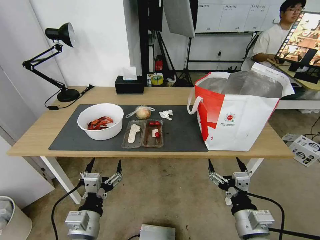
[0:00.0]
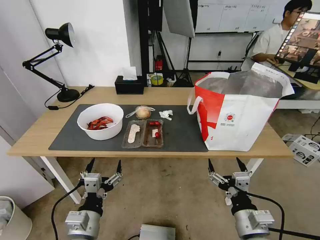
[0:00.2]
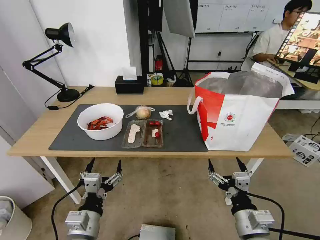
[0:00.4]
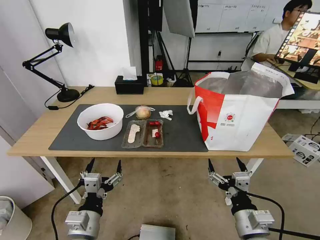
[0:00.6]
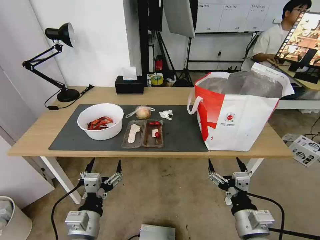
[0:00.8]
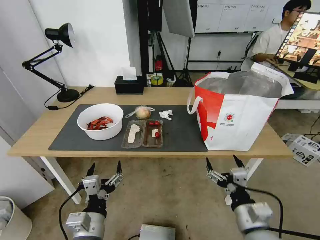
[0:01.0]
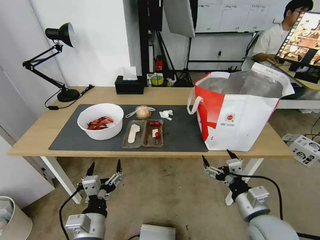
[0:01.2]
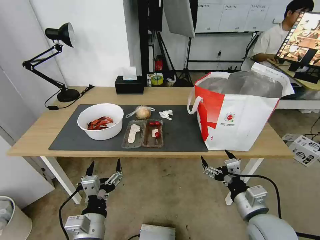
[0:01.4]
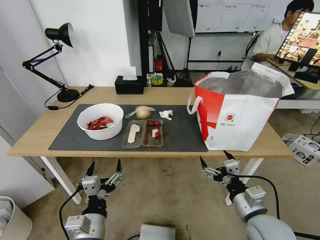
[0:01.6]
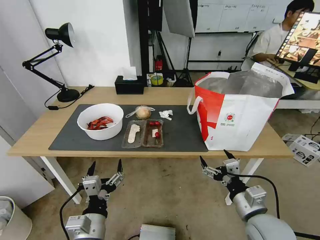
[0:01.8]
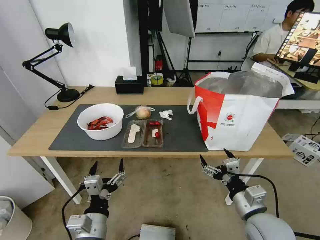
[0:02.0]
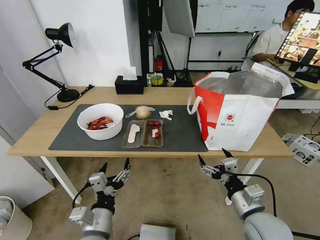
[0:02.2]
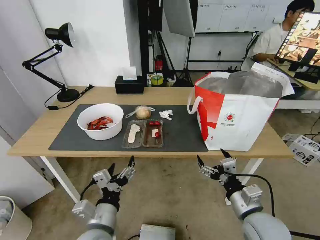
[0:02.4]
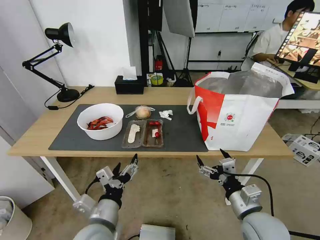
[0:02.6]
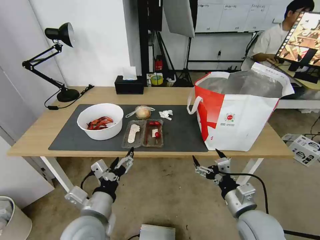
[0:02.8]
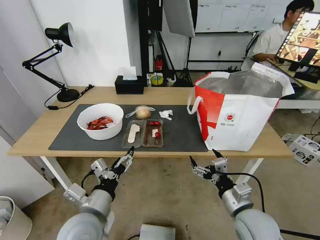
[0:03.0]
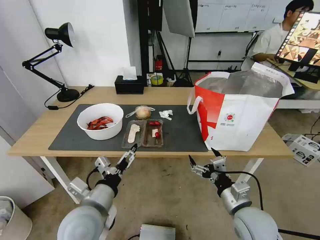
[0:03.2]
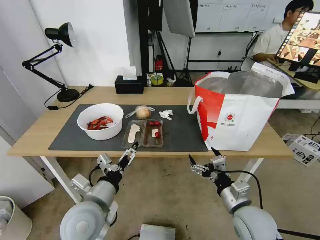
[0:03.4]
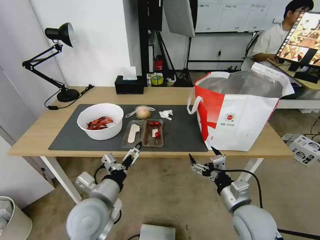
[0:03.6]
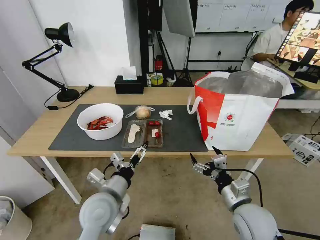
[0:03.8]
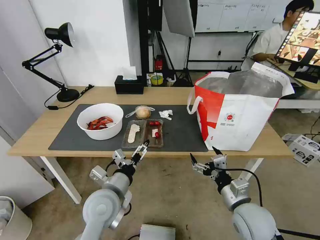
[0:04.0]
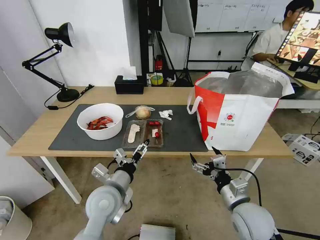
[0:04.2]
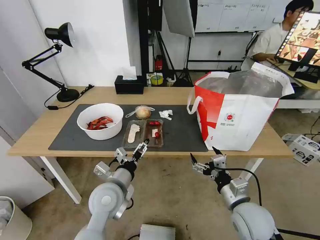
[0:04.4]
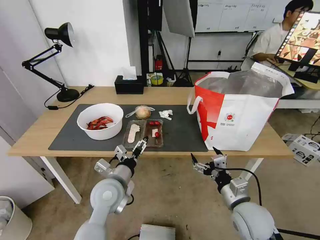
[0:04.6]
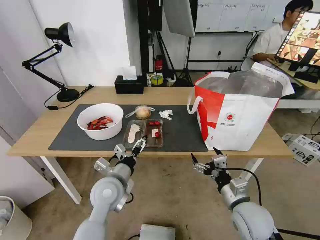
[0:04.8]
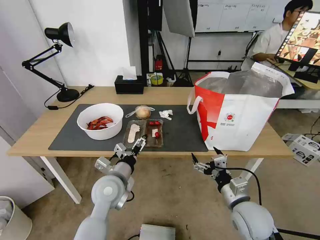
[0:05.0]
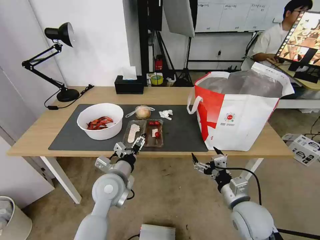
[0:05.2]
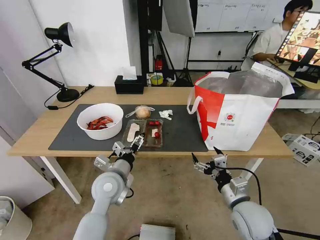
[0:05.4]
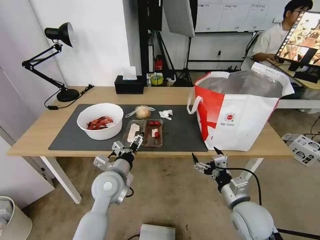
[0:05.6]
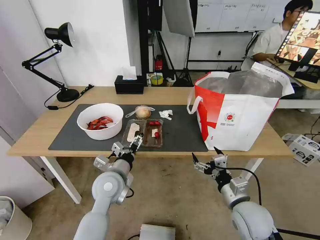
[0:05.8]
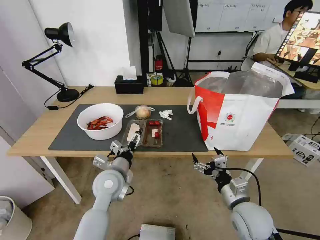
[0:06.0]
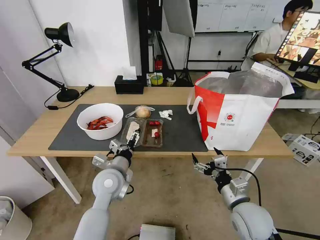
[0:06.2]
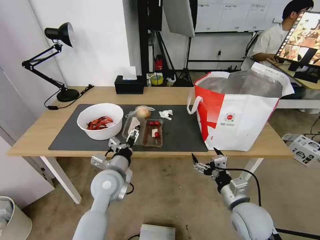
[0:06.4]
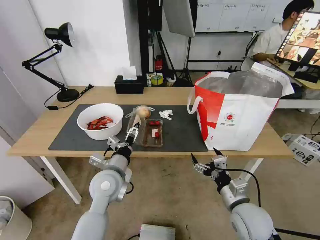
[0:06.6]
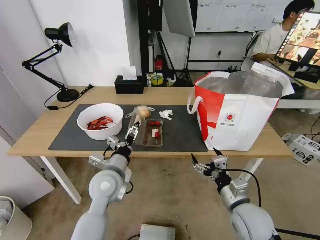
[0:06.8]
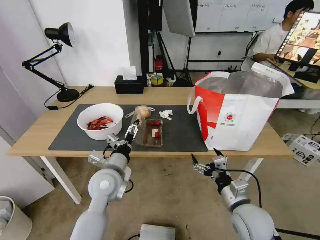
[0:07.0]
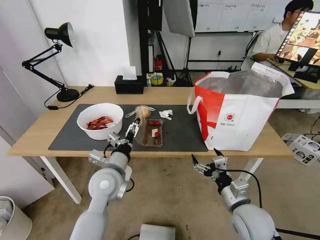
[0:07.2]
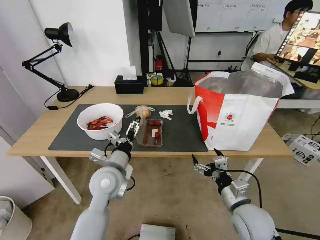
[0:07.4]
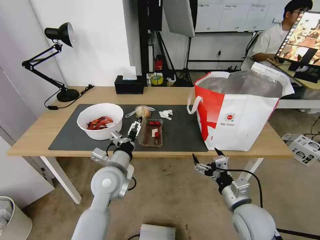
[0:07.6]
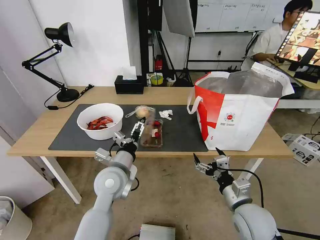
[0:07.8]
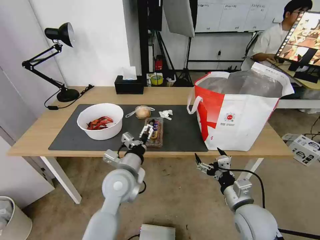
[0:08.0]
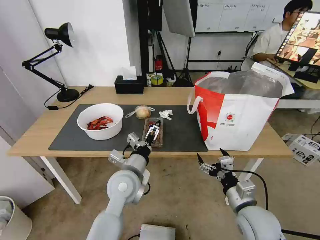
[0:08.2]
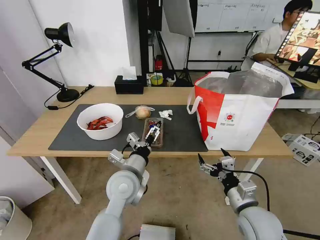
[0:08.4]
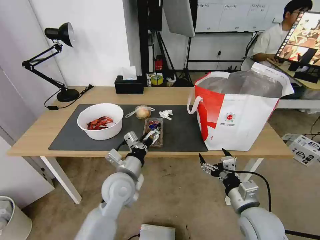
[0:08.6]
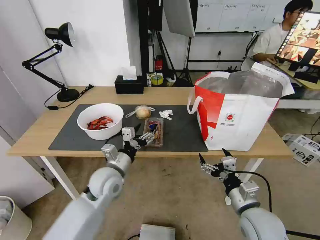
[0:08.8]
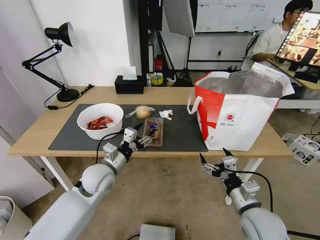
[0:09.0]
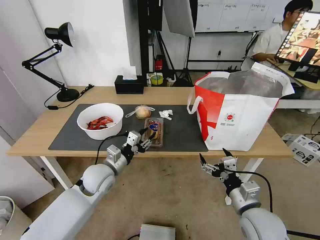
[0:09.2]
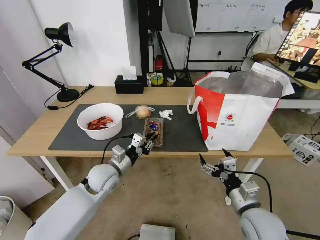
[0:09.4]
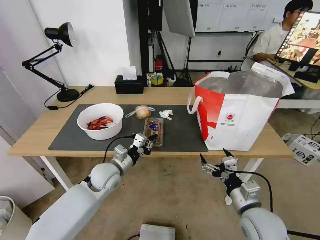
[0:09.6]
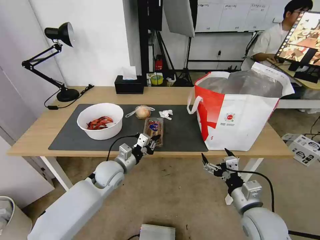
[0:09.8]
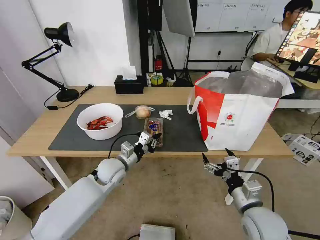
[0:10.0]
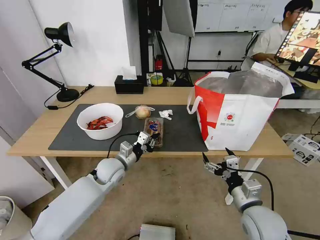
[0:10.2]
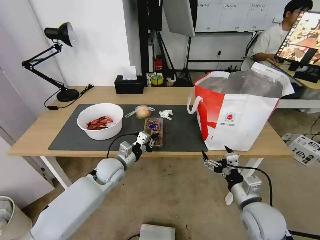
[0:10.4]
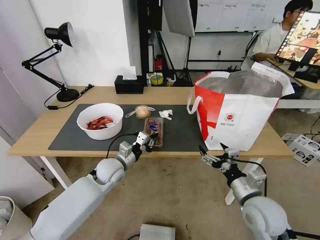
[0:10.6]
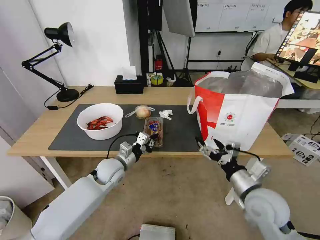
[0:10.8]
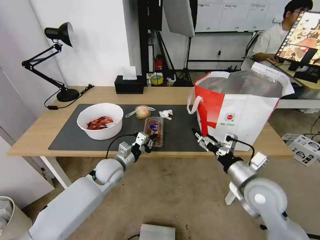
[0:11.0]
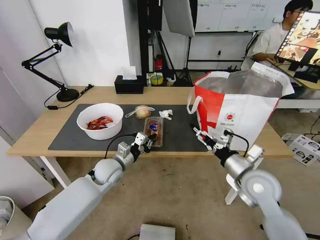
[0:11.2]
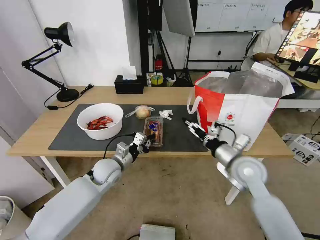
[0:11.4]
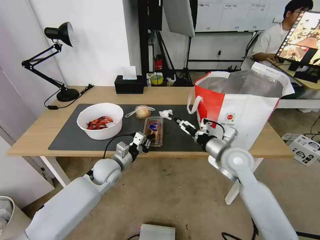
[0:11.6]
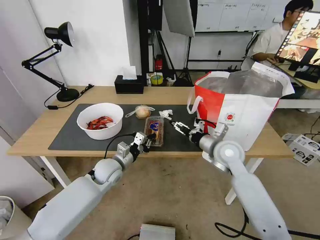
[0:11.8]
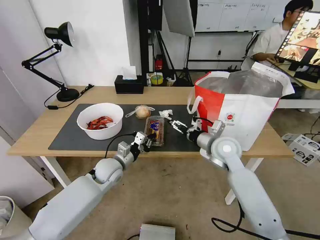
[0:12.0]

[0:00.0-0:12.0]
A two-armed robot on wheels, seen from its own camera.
Task of the whole recording: Pick up the trash from the table and place it into the takeout bag.
0:01.6 to 0:03.0: The left gripper goes some 5 cm upward.
0:03.0 to 0:04.4: The left gripper heads forward, covering some 10 cm.
0:04.4 to 0:07.6: The grippers move only a little.
0:07.6 to 0:09.0: The left gripper ends up some 5 cm from where it was, and closes.
0:09.0 to 0:10.4: The left gripper shifts by about 5 cm, and closes its fingers.
0:10.4 to 0:12.0: The right gripper moves forward, roughly 20 cm.

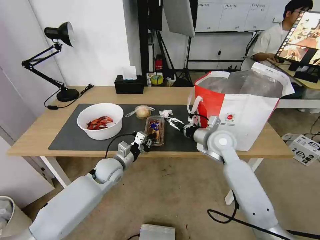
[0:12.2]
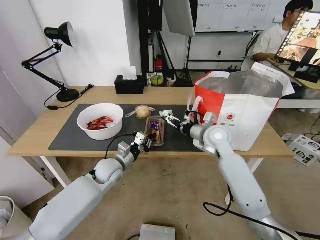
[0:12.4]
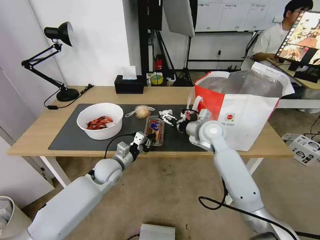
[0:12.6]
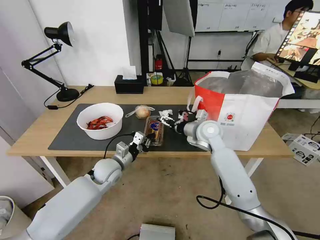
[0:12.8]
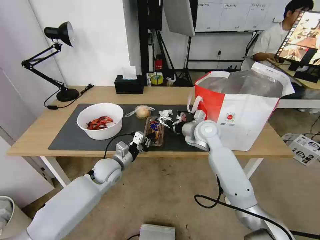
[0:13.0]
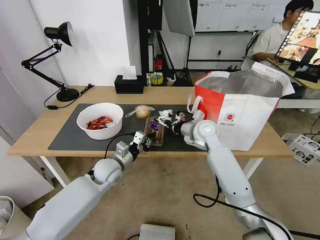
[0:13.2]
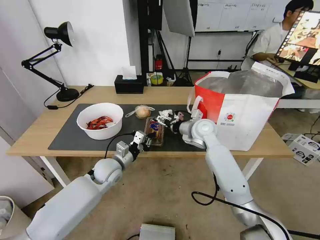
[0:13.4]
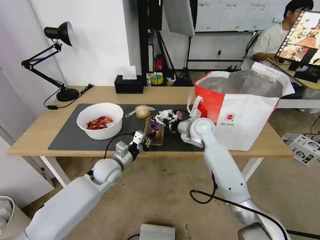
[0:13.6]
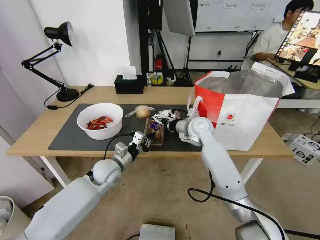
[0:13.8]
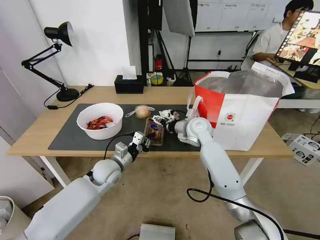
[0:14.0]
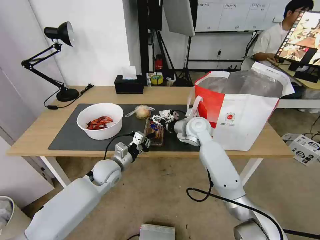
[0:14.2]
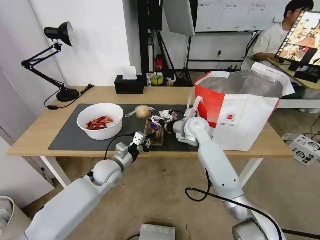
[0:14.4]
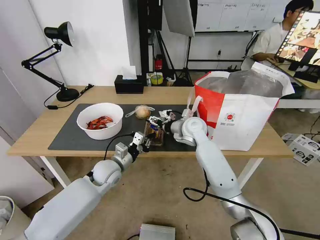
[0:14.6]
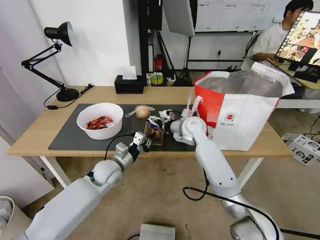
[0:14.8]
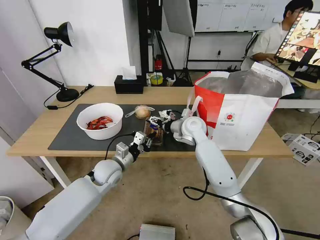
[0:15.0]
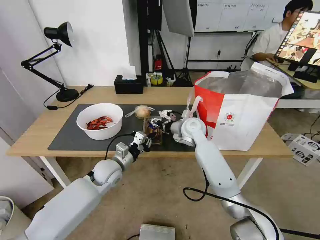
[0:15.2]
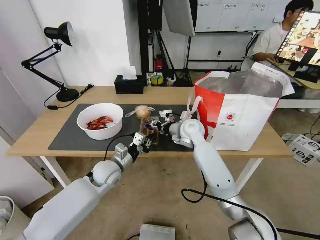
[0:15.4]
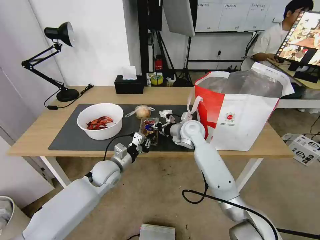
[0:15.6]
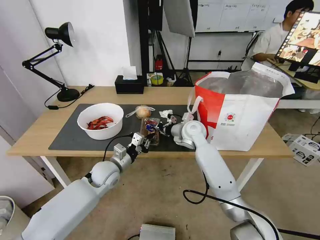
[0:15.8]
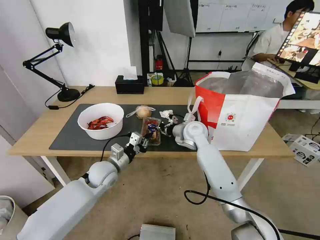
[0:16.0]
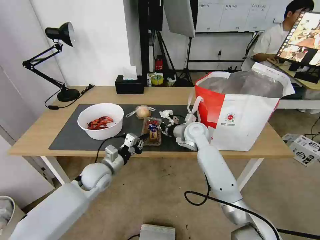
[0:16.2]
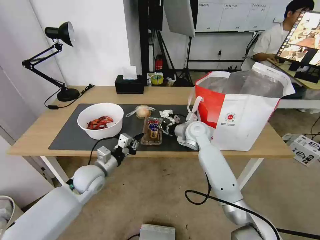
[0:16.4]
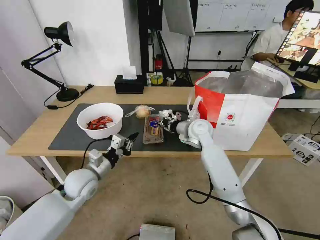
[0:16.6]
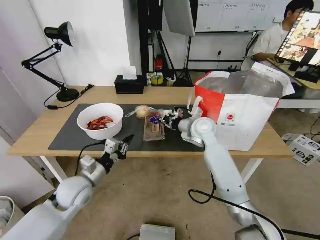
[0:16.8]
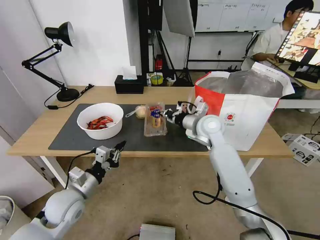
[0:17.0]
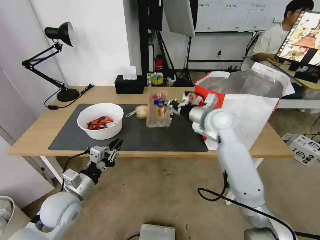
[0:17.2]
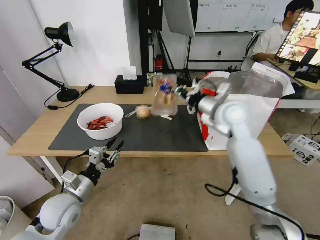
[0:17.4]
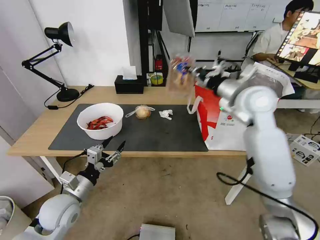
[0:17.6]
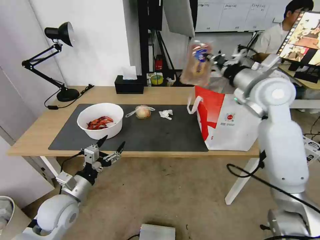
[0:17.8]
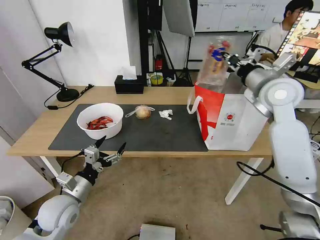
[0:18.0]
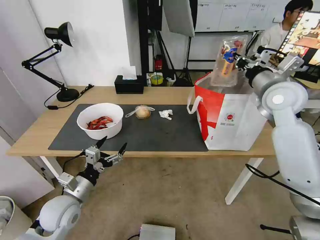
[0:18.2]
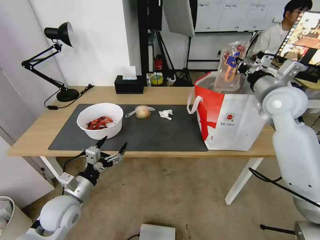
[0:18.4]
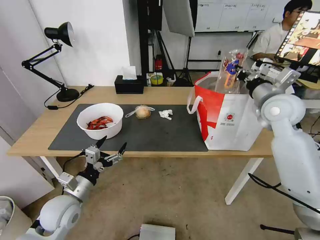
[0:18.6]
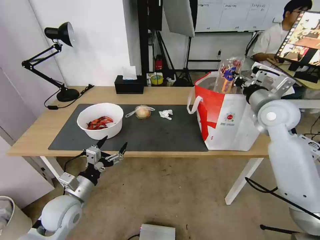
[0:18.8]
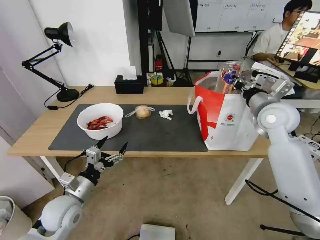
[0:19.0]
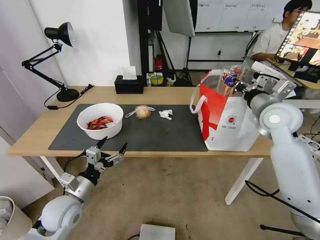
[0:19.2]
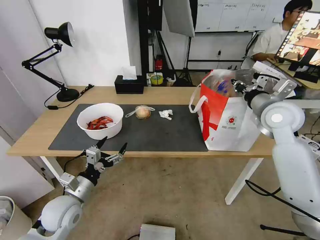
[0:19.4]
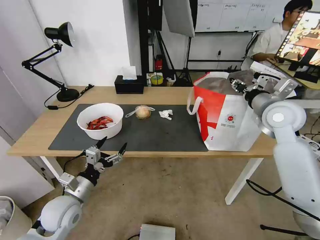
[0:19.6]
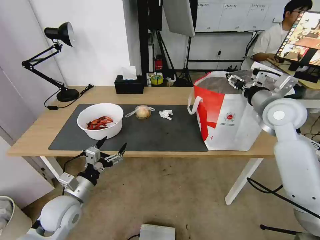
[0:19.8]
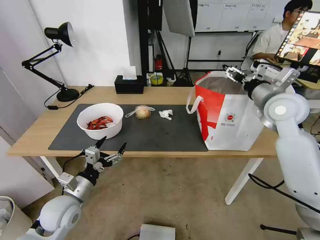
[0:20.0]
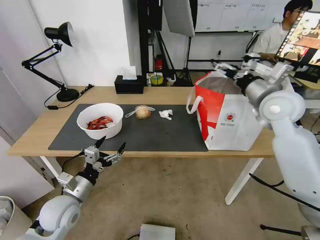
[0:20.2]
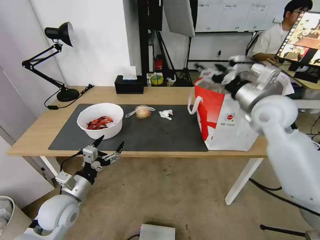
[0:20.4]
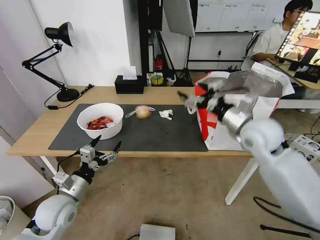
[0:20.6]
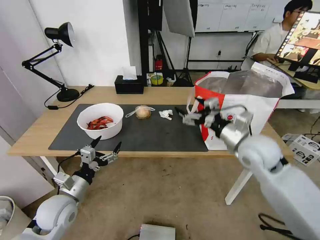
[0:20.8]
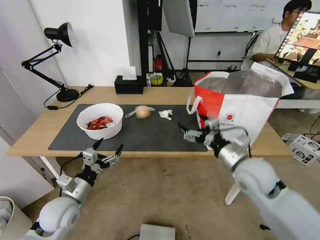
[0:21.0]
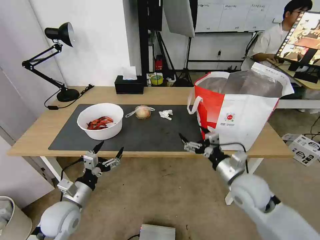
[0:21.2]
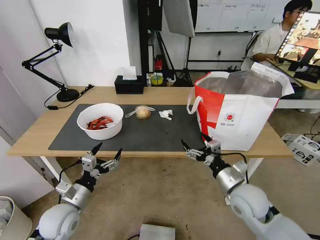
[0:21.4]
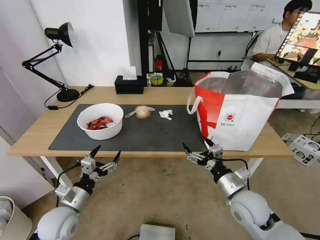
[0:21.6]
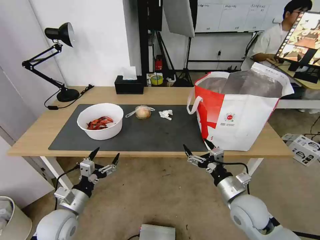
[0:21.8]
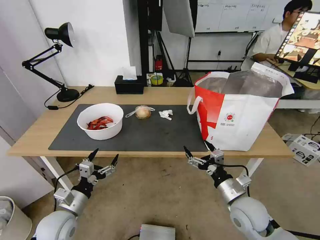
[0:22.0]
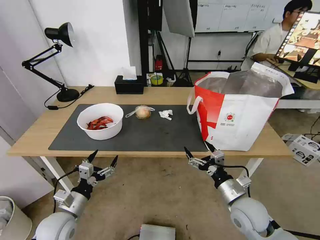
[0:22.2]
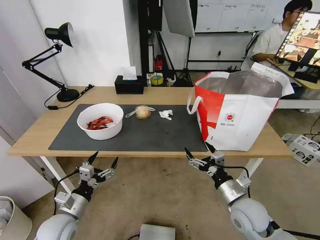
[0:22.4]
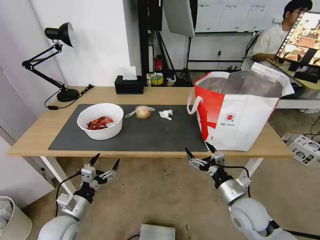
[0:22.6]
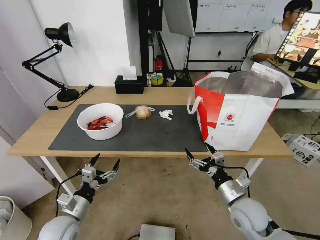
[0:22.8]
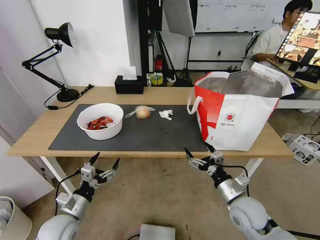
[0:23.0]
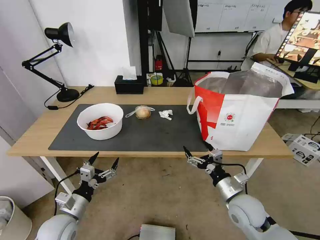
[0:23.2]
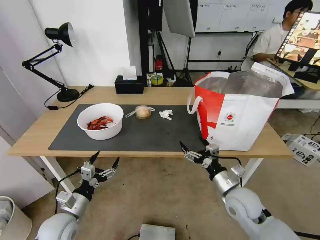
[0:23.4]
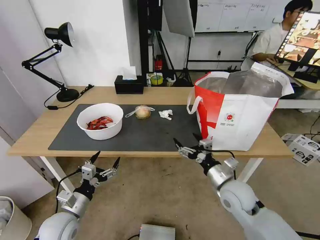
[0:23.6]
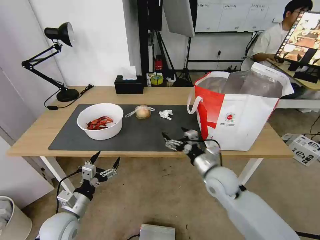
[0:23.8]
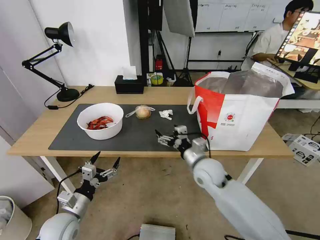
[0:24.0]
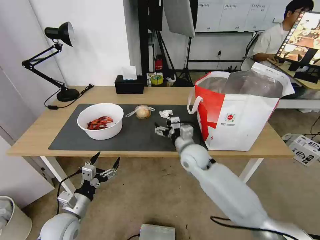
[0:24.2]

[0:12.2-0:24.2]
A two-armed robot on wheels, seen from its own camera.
Task of the whole recording: Pick up the trash from the table and place it into the takeout bag.
0:12.2 to 0:13.8: The right gripper is displaced forward and to the left by some 10 cm.
0:13.8 to 0:15.2: The grippers move only a little.
0:15.2 to 0:16.6: The right gripper closes up; the left gripper is displaced to the left and backward by some 10 cm.
0:16.6 to 0:18.2: The left gripper is displaced backward by roughly 10 cm, and opens up, while the right gripper heads to the right and upward, covering some 25 cm.
0:18.2 to 0:19.8: The right gripper opens its fingers.
0:19.8 to 0:21.2: The right gripper travels downward, backward and to the left by roughly 25 cm, and opens.
0:21.2 to 0:22.6: The right gripper heads downward, covering roughly 5 cm.
0:22.6 to 0:24.2: The right gripper moves forward and to the left, some 20 cm.
